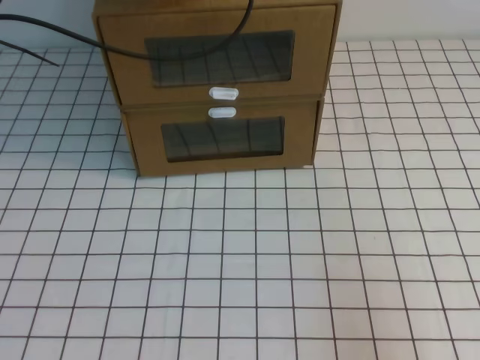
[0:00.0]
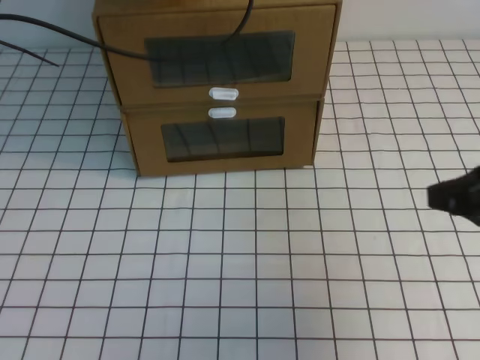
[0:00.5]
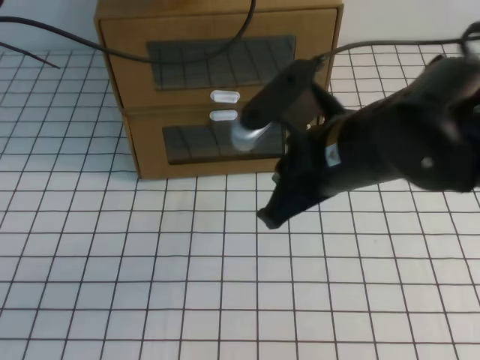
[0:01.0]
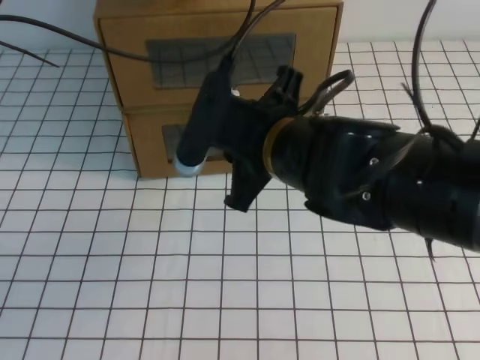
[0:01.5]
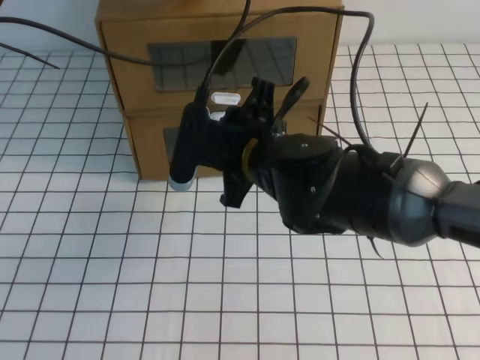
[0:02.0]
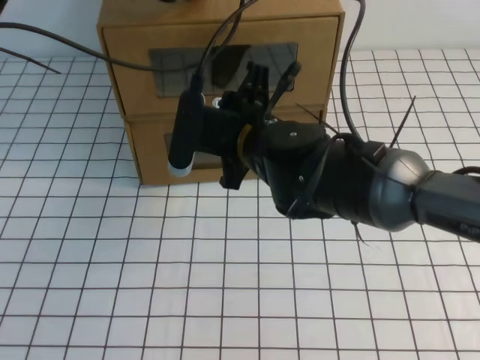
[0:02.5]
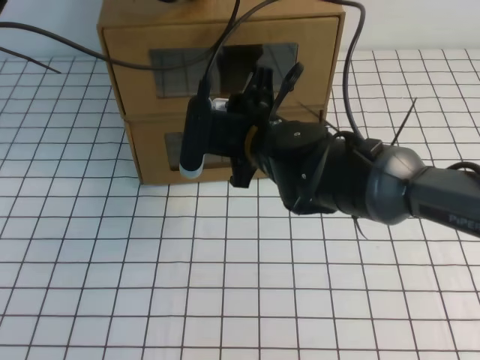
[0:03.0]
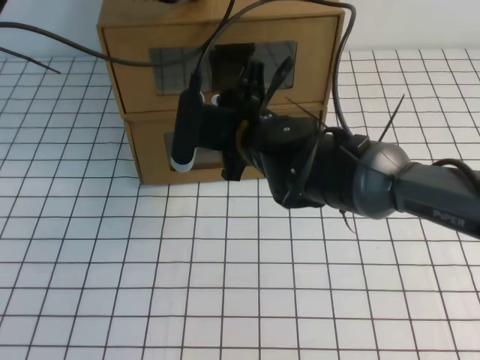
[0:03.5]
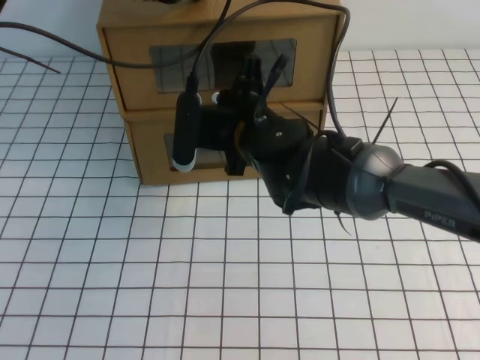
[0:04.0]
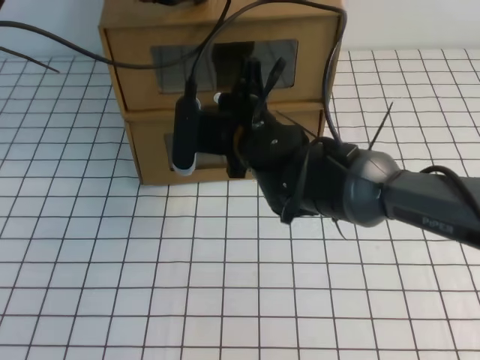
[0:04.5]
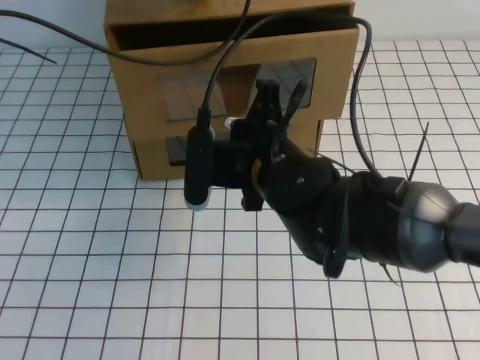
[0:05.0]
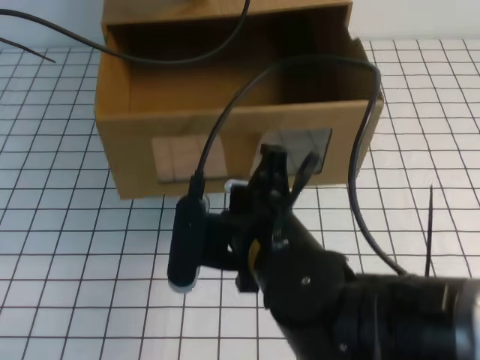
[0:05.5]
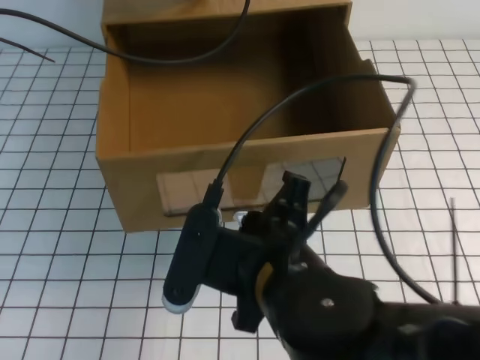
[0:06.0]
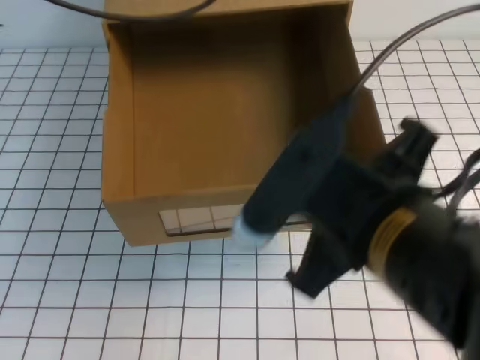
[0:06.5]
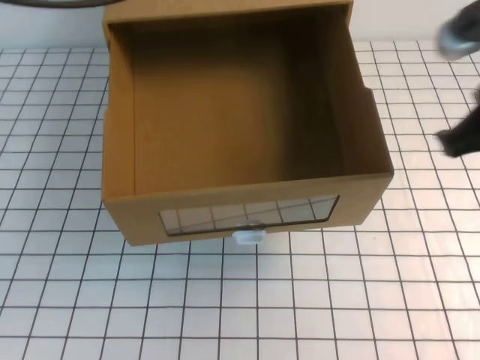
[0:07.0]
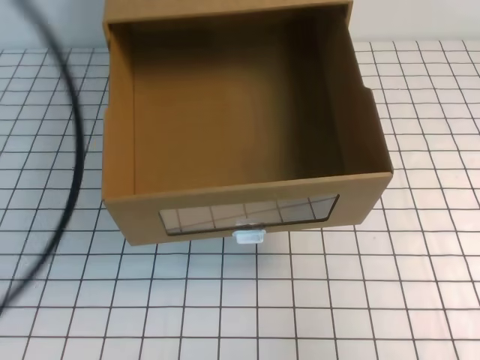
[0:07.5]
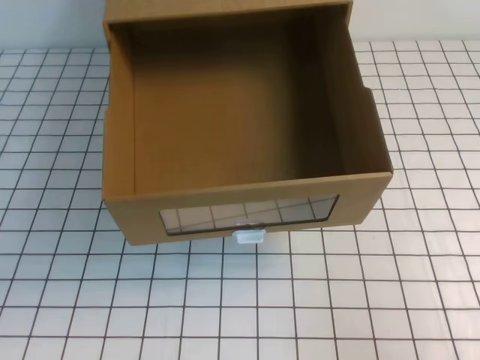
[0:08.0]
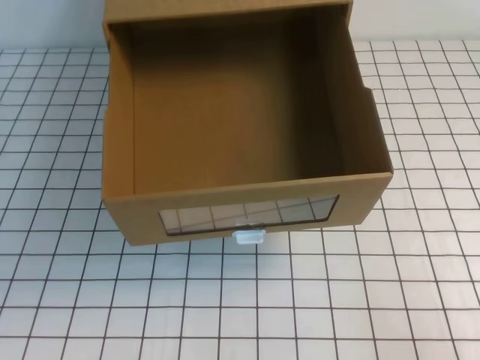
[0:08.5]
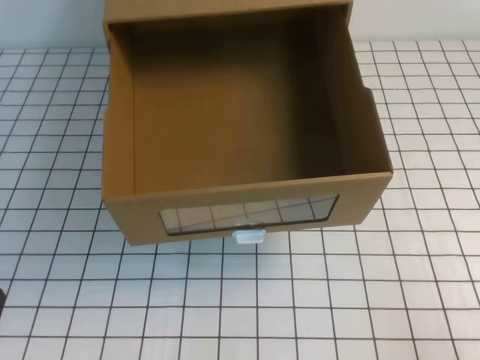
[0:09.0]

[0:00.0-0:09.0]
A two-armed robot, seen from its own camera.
Task of the whole recording: open the shoebox on the white tablecloth.
0:00.0 to 0:02.0: The right gripper moves to the left and forward, about 35 cm, and opens up.
0:02.0 to 0:04.5: The right gripper is displaced forward by about 5 cm, and closes.
0:04.5 to 0:07.0: The right gripper goes roughly 30 cm to the right, backward and upward; the left gripper is displaced backward and upward by some 20 cm.
0:07.0 to 0:09.0: The right gripper goes approximately 25 cm downward, backward and to the right, while the left gripper travels downward and backward by approximately 40 cm.

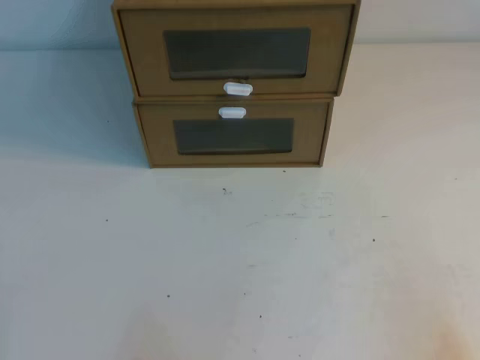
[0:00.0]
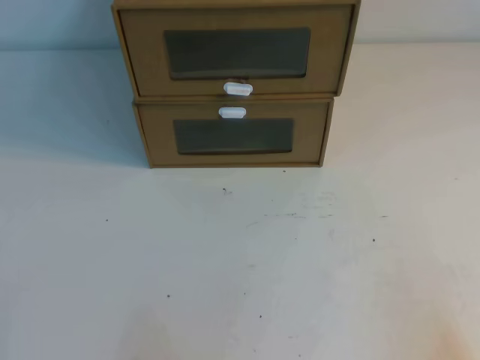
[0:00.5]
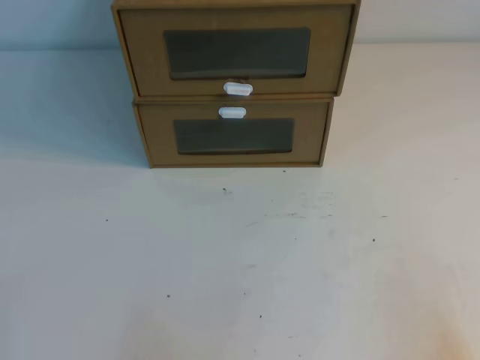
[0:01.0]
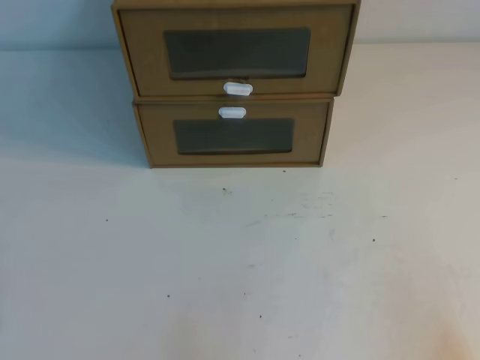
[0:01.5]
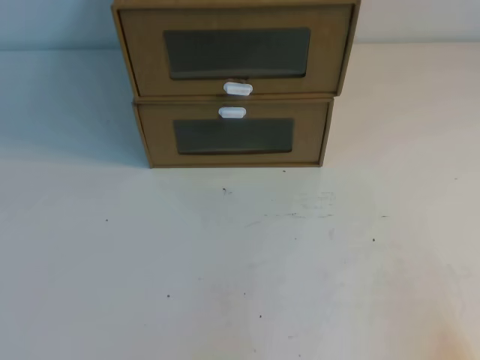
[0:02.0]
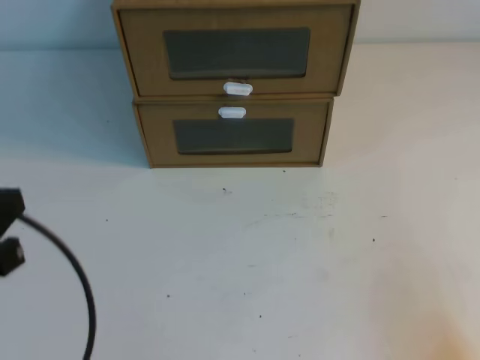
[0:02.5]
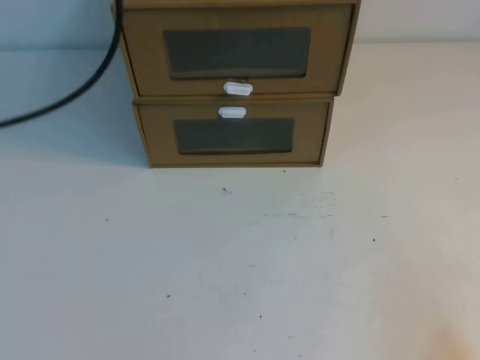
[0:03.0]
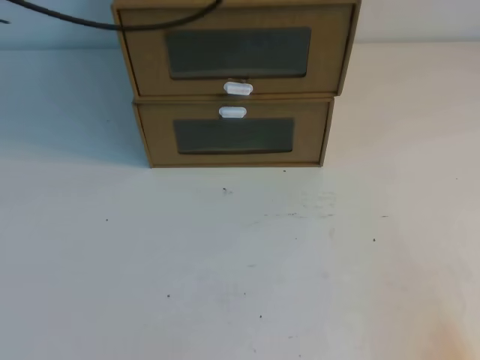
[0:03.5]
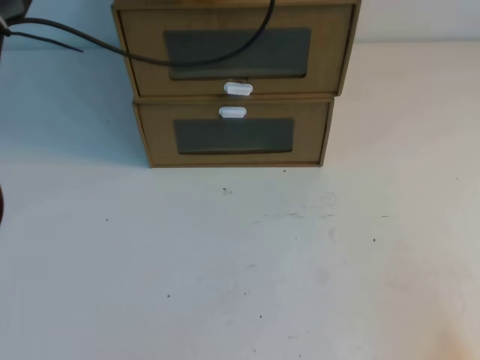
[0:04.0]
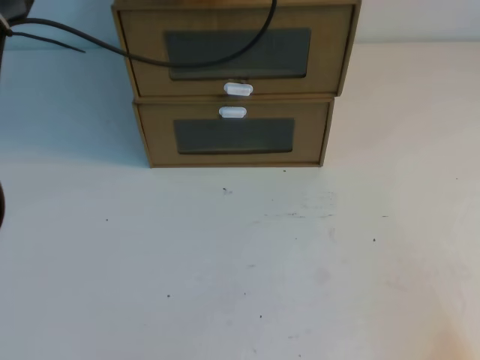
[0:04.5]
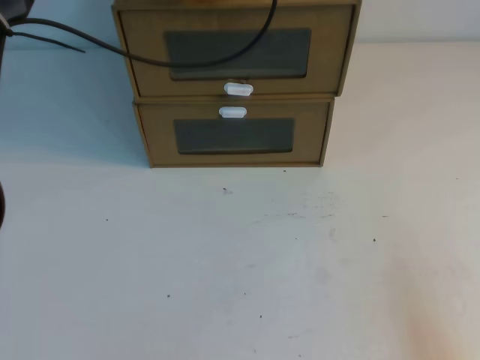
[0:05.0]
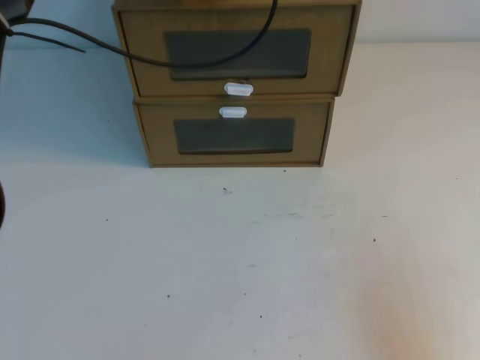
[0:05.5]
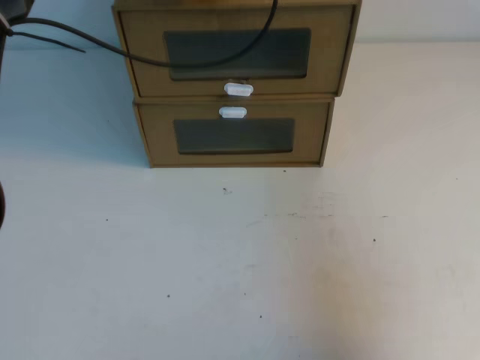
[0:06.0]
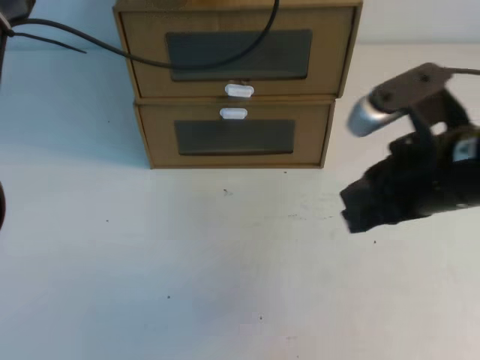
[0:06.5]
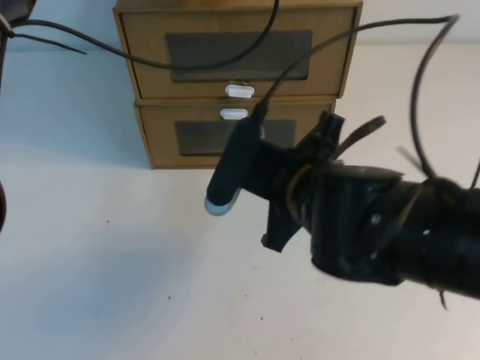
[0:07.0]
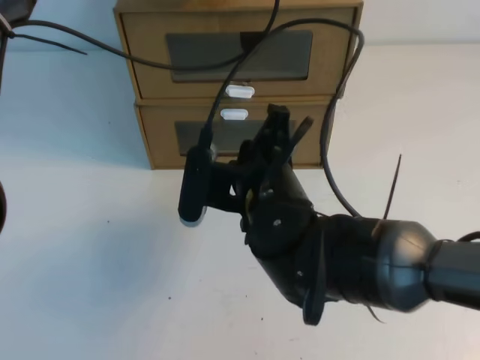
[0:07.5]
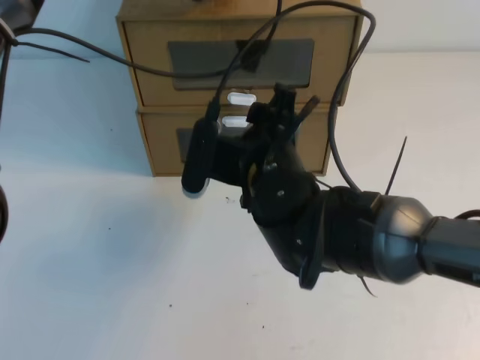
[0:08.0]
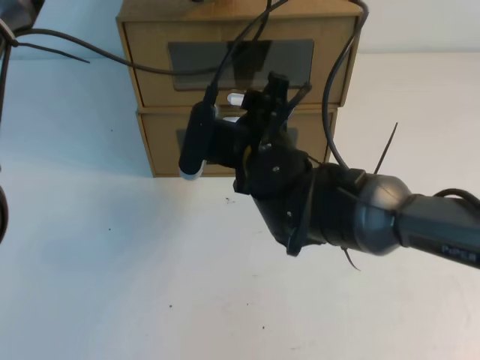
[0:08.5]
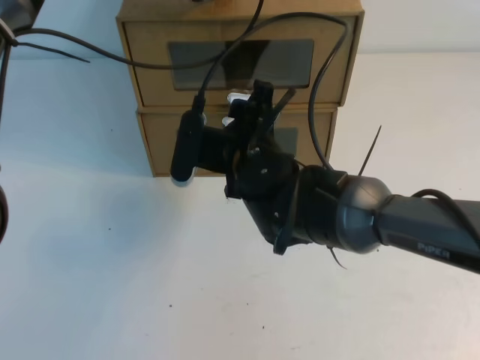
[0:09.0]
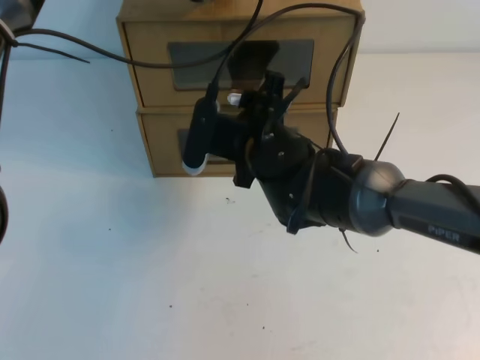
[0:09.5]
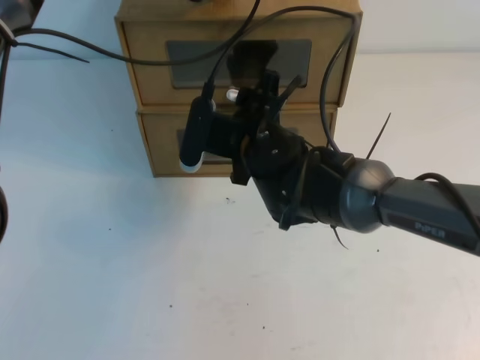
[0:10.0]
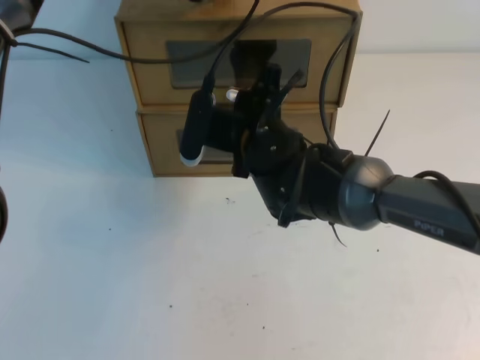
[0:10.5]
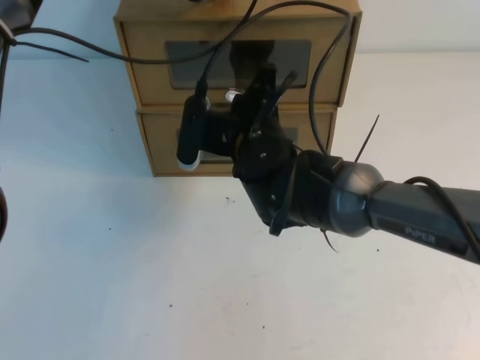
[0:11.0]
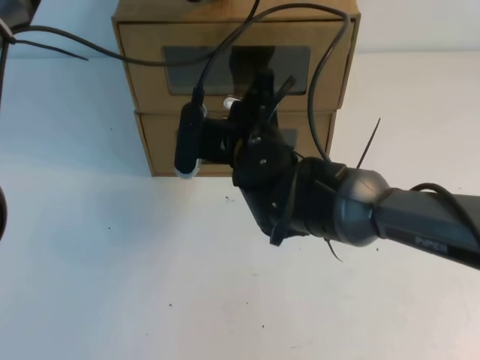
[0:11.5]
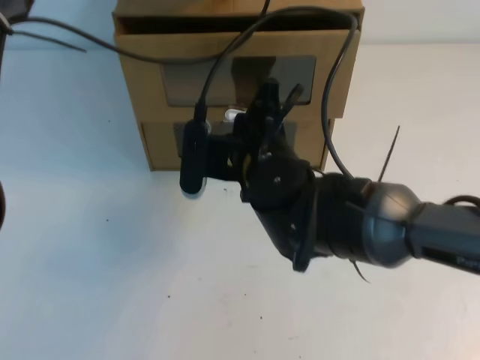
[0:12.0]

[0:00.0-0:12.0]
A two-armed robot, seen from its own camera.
Task of the whole recording: open the shoebox on the table.
0:02.0 to 0:04.0: The left gripper travels forward, upward and to the right by some 50 cm.
0:04.0 to 0:06.0: The right gripper is displaced upward and forward by some 15 cm.
0:06.0 to 0:08.0: The right gripper travels to the left and forward by some 30 cm, and opens up.
0:08.0 to 0:10.0: The right gripper heads forward, covering some 5 cm.
0:10.0 to 0:12.0: The right gripper moves roughly 5 cm, and closes up.

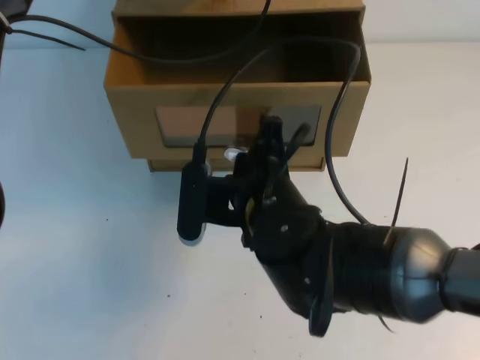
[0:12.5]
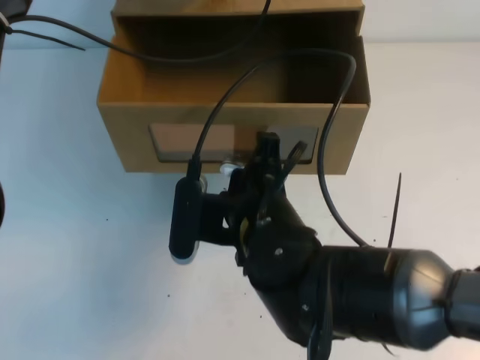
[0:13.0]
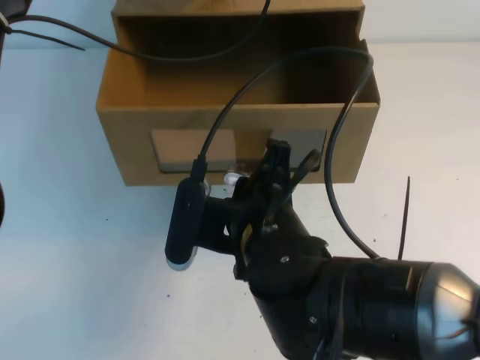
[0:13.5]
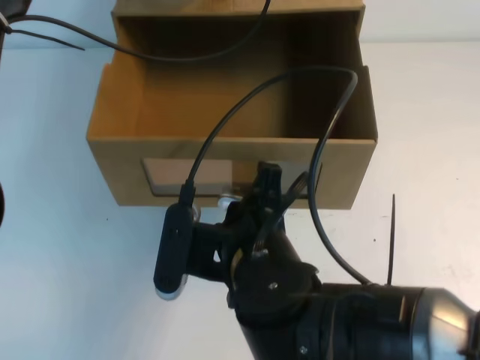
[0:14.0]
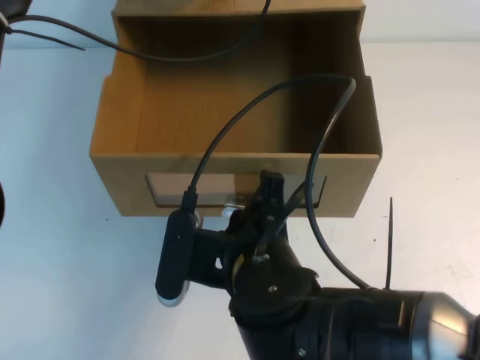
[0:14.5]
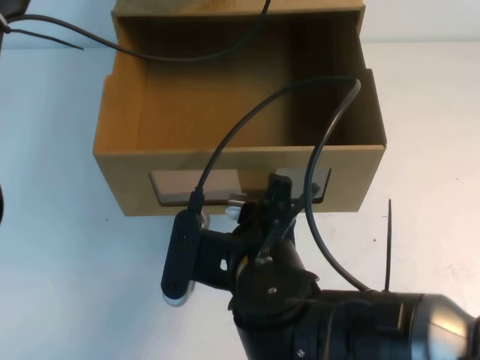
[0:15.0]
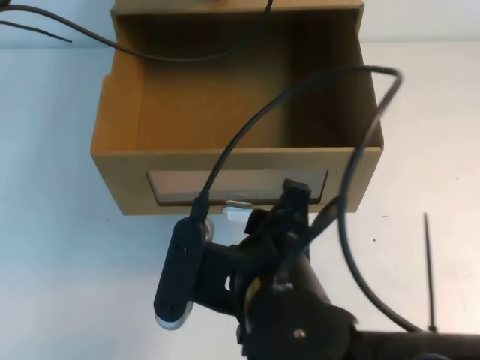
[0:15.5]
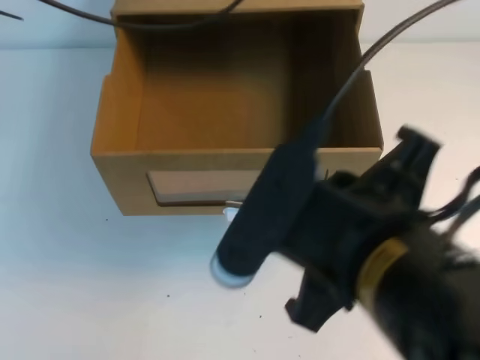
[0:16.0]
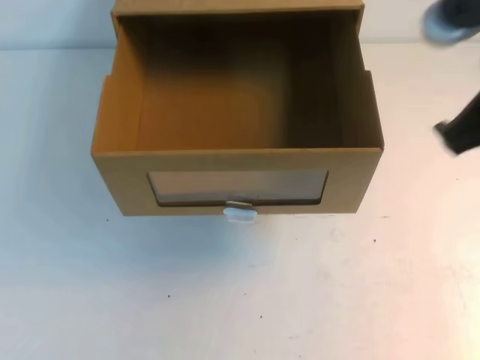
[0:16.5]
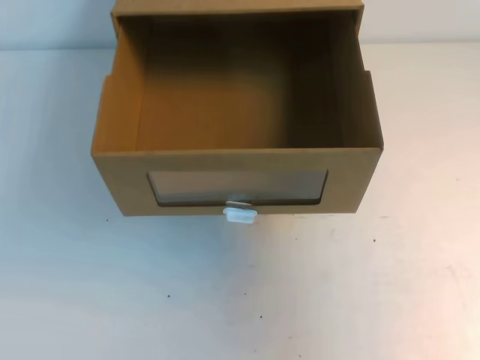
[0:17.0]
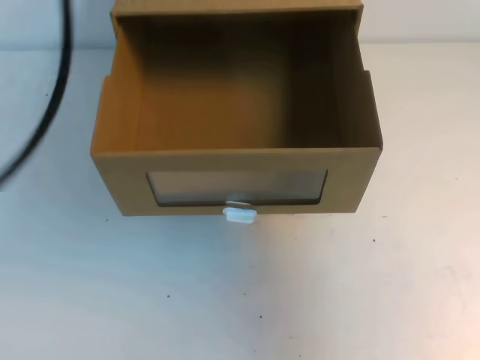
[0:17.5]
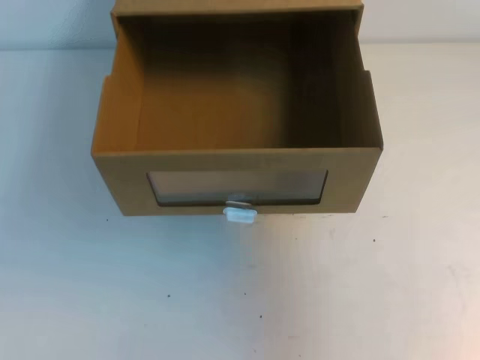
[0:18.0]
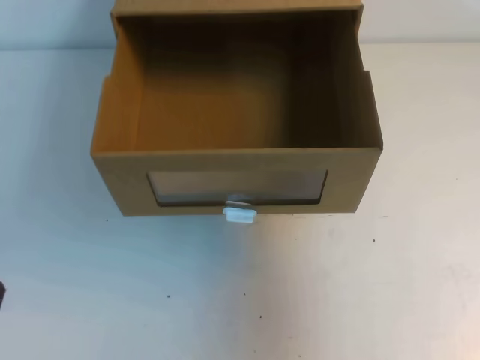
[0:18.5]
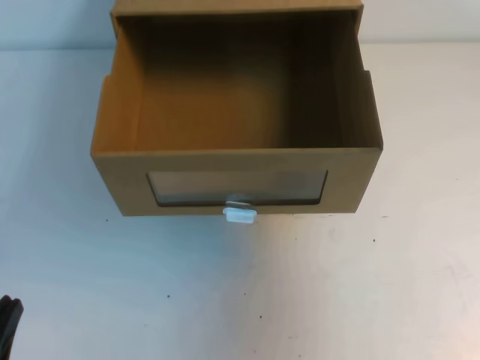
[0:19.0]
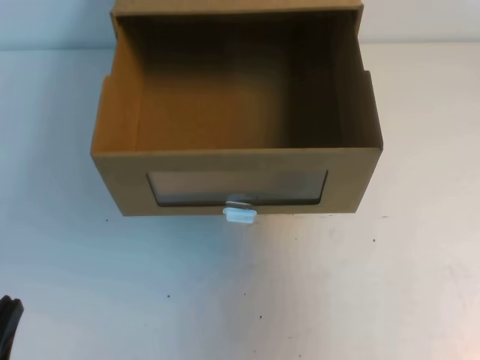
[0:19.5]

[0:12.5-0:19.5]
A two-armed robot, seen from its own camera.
Task of the whole recording: open the shoebox on the table.
0:12.5 to 0:14.5: The right gripper heads backward, covering some 10 cm.
0:14.5 to 0:16.0: The right gripper shifts some 15 cm upward, backward and to the right, and opens and closes again. The left gripper travels upward and backward by approximately 10 cm.
0:16.0 to 0:17.5: The left gripper goes some 25 cm backward and to the left; the right gripper shifts about 25 cm to the right and forward.
0:17.5 to 0:19.5: The left gripper goes some 35 cm downward.
